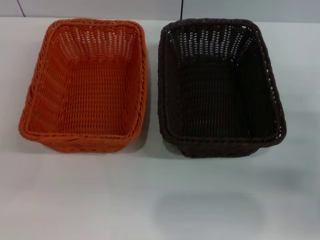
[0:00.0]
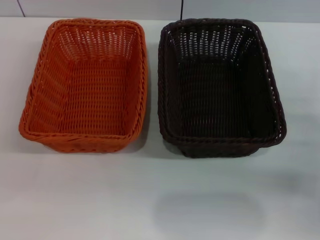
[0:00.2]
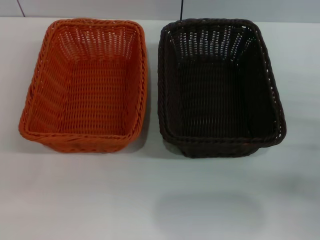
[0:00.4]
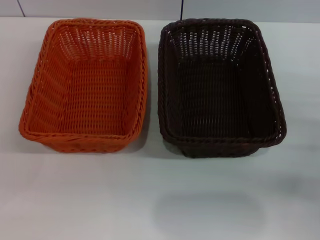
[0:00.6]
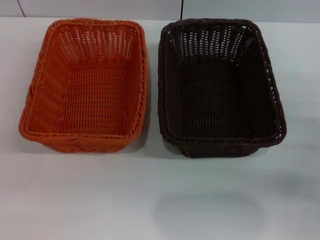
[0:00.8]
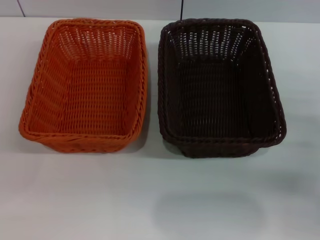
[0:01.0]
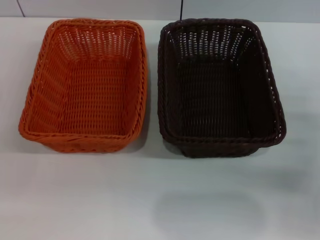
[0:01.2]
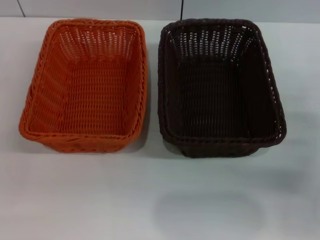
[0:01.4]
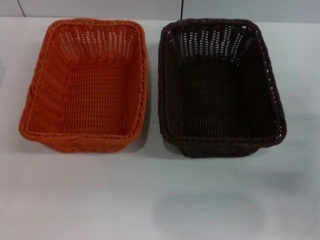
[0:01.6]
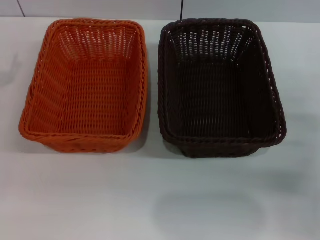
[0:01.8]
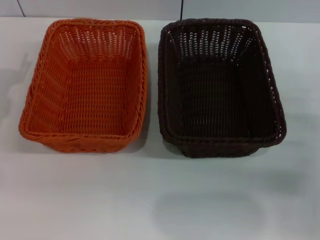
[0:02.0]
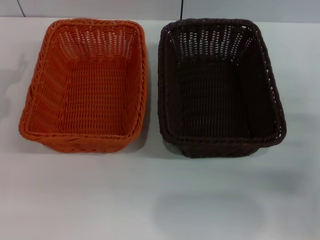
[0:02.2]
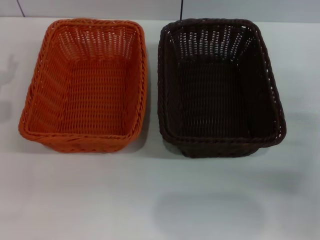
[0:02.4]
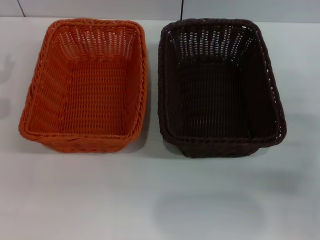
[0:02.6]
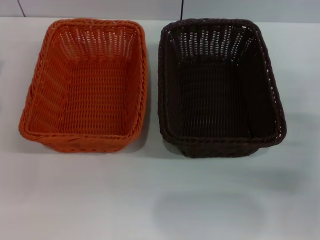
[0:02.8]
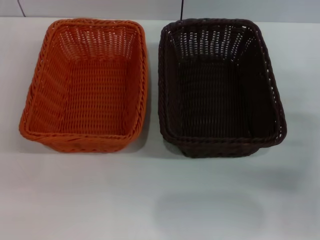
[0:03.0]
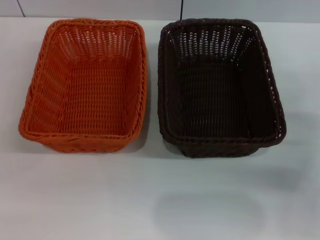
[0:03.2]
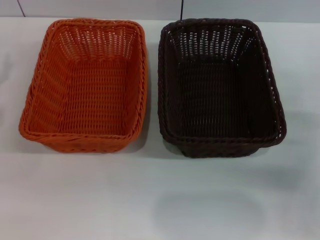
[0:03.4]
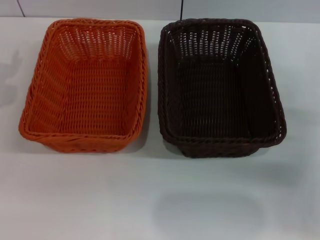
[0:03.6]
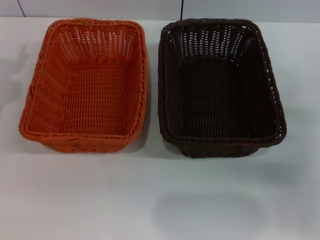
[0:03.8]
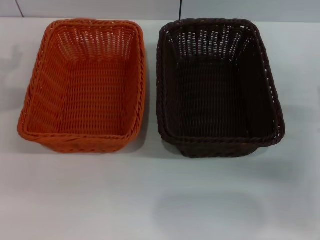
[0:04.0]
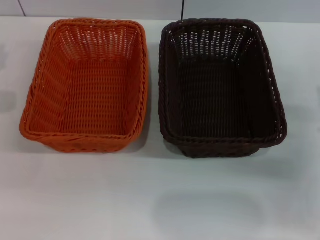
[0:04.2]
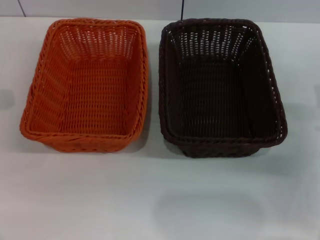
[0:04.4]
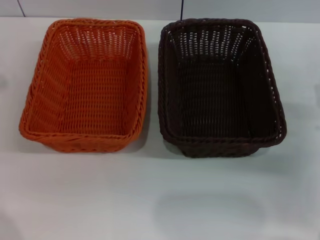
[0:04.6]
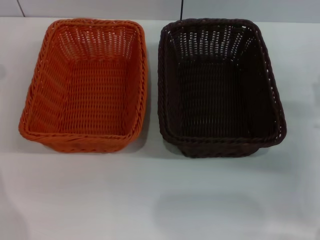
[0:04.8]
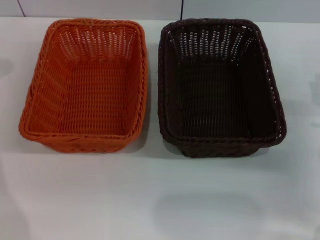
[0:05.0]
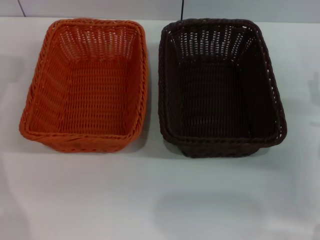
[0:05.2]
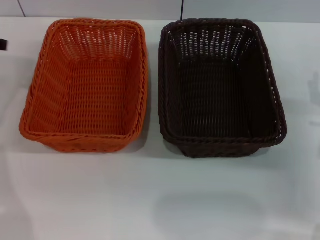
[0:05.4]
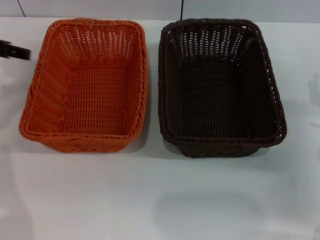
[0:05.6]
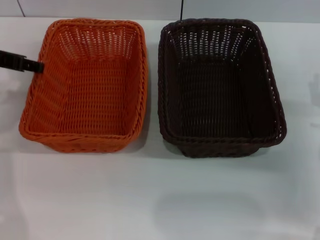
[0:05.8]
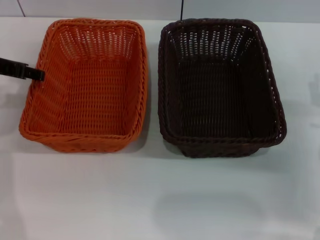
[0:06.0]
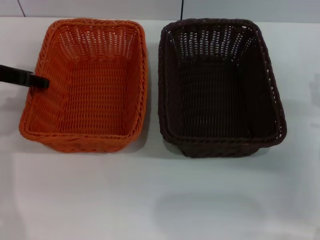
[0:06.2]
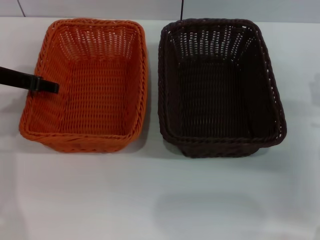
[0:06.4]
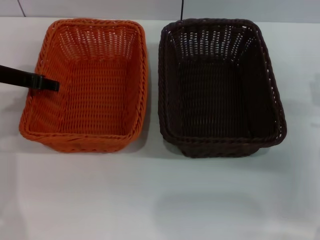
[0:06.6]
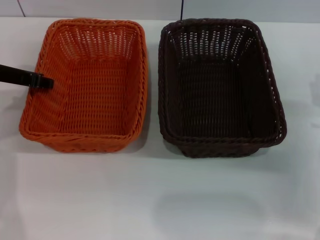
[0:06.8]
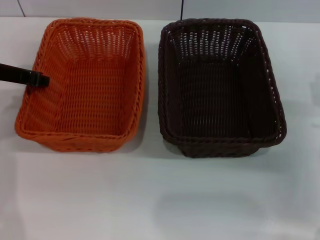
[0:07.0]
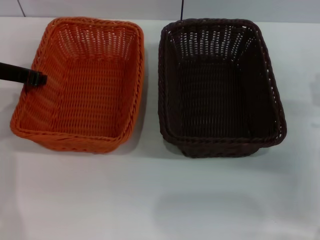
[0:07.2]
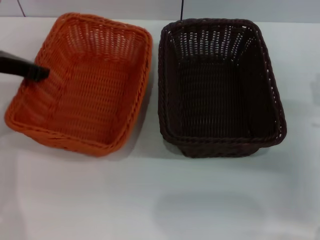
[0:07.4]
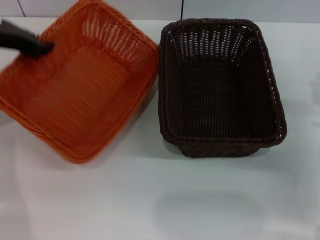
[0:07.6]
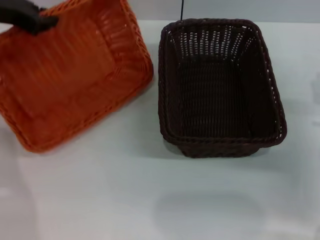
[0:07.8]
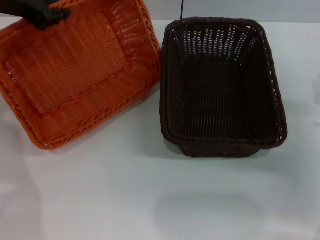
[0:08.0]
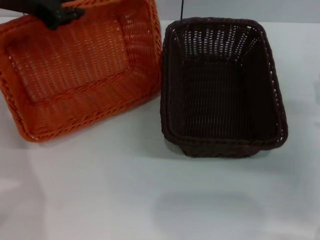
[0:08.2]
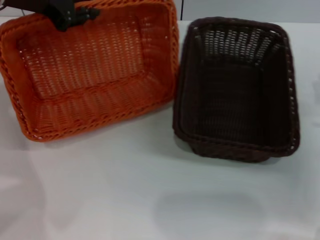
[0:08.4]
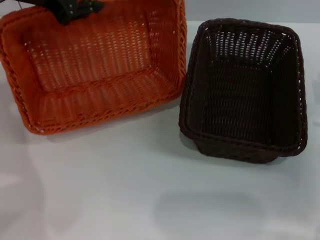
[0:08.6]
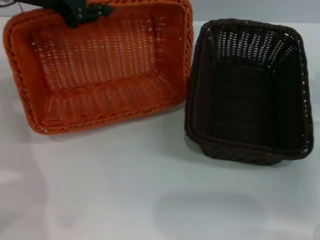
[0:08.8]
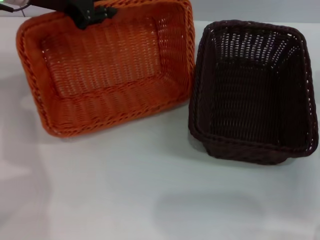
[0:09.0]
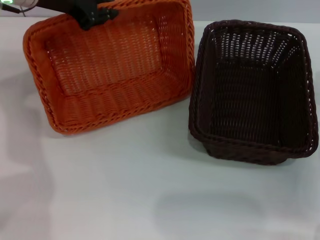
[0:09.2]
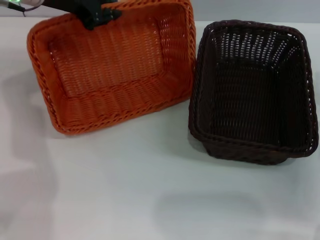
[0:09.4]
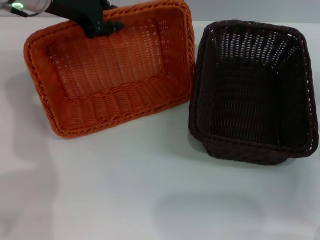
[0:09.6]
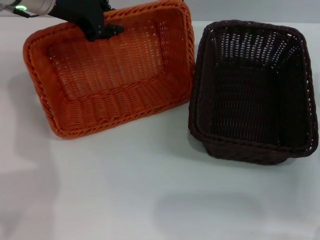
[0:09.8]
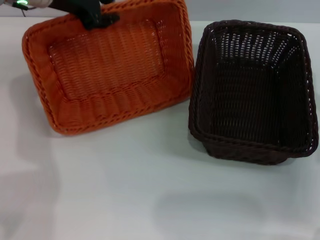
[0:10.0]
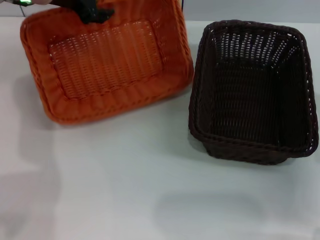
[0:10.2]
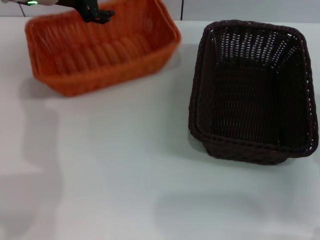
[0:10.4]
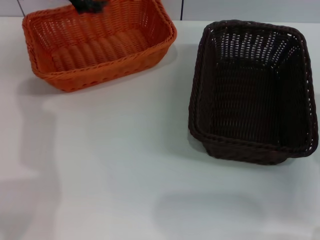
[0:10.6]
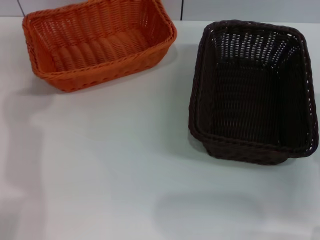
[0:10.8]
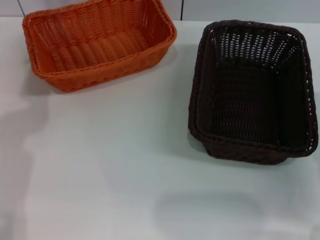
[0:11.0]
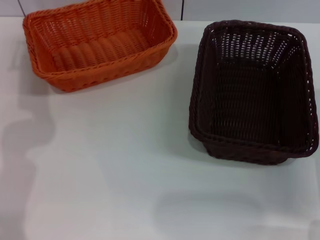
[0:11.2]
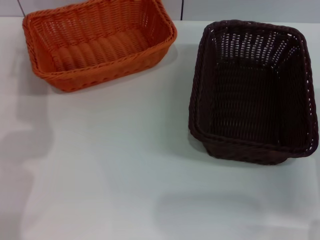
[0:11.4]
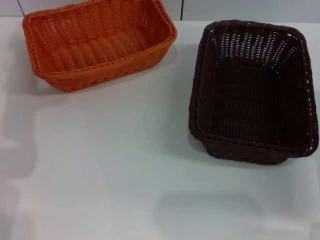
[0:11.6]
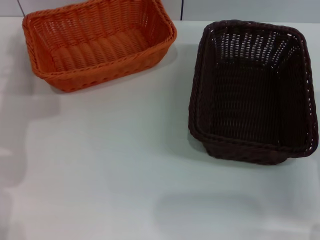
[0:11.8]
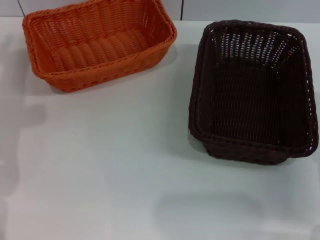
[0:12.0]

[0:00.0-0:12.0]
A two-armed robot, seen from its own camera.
Step, 0:00.0 to 0:07.8: Pick up the light basket with the left gripper.
Step, 0:08.0 to 0:10.4: Place the light basket in the center of view with the left gripper.
0:04.4 to 0:06.0: The left gripper heads to the right and upward, covering about 10 cm.
0:06.0 to 0:07.6: The left gripper closes its fingers.
0:07.6 to 0:09.0: The left gripper moves to the right, some 5 cm.
0:09.0 to 0:10.4: The left gripper ends up about 5 cm from where it was, and opens up.
0:10.4 to 0:12.0: The left gripper shifts some 15 cm backward and to the left.

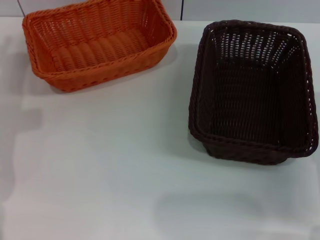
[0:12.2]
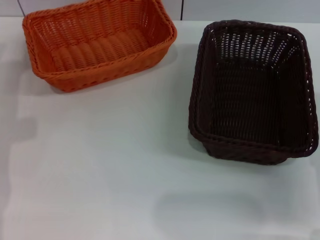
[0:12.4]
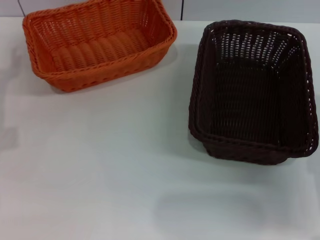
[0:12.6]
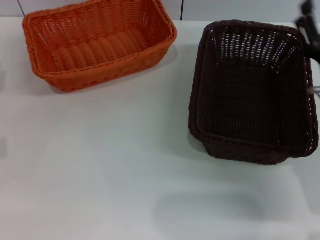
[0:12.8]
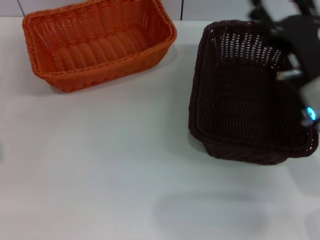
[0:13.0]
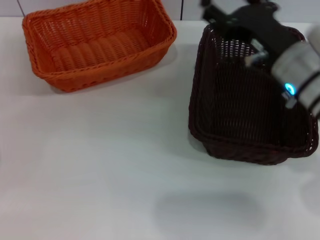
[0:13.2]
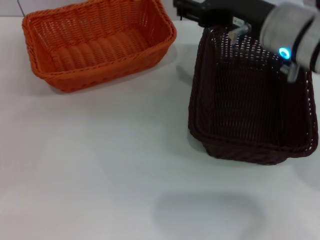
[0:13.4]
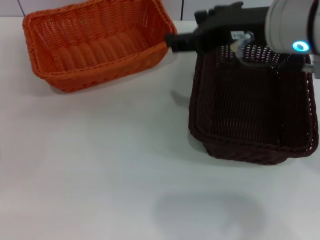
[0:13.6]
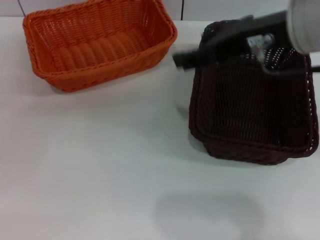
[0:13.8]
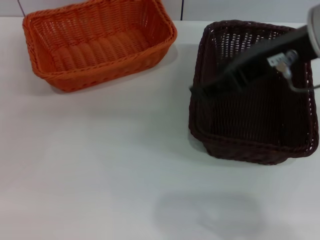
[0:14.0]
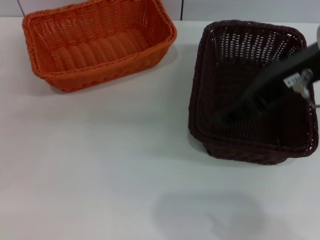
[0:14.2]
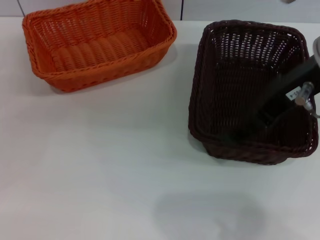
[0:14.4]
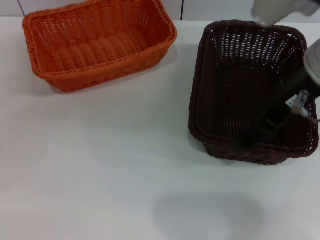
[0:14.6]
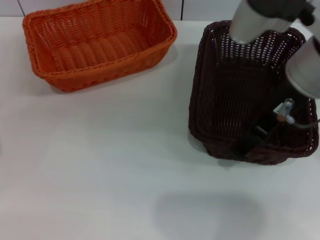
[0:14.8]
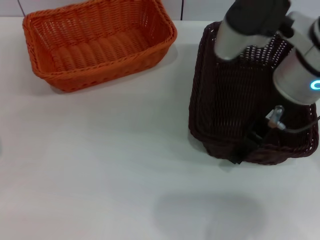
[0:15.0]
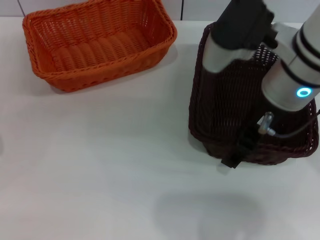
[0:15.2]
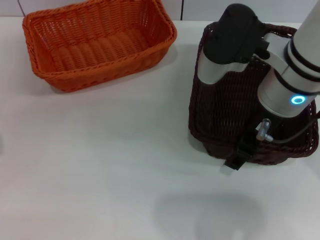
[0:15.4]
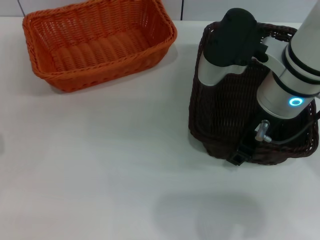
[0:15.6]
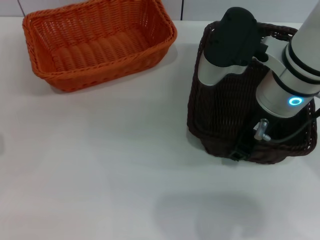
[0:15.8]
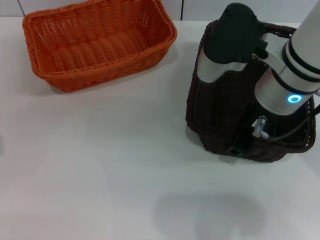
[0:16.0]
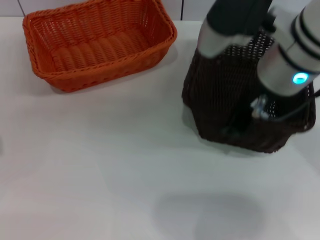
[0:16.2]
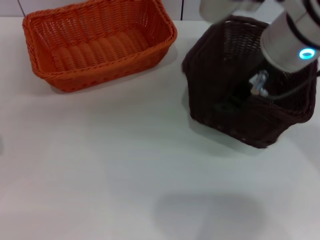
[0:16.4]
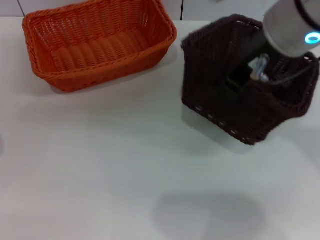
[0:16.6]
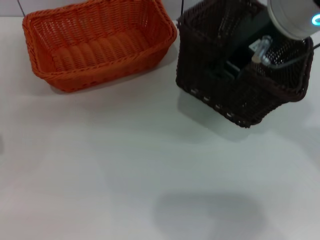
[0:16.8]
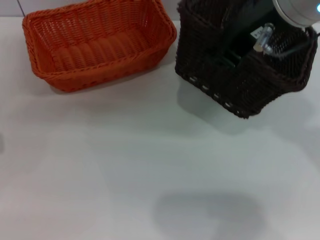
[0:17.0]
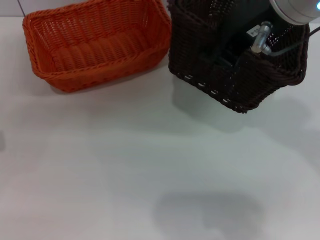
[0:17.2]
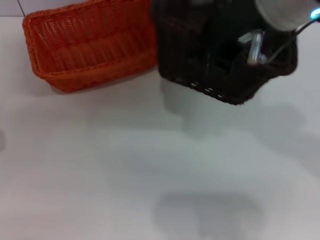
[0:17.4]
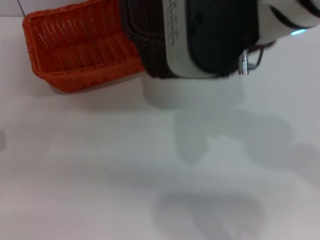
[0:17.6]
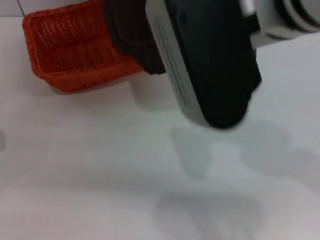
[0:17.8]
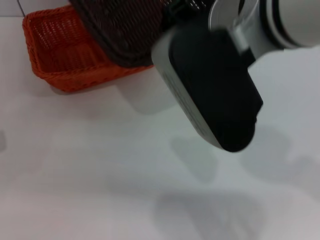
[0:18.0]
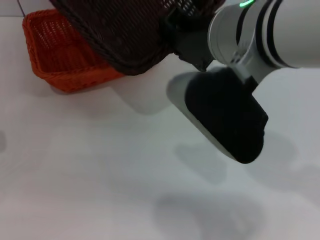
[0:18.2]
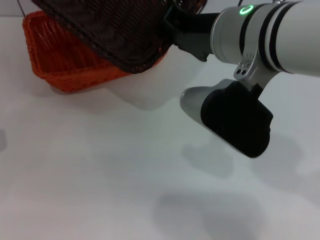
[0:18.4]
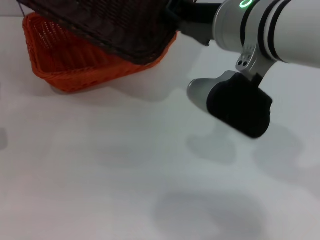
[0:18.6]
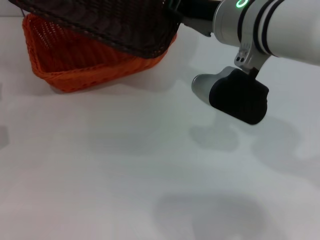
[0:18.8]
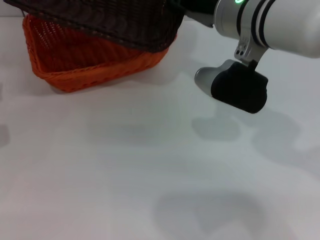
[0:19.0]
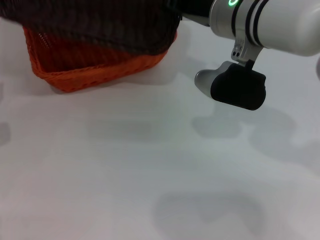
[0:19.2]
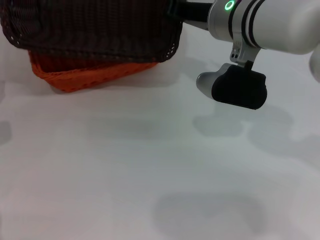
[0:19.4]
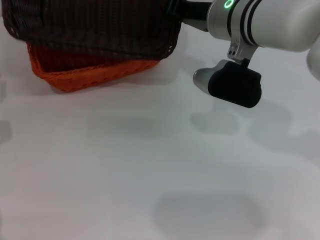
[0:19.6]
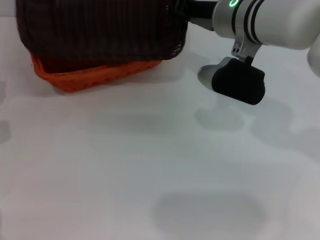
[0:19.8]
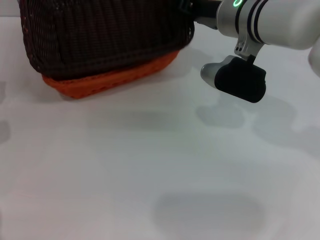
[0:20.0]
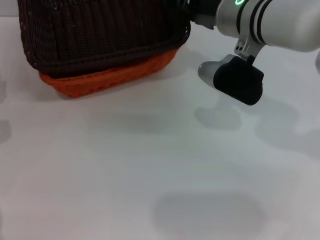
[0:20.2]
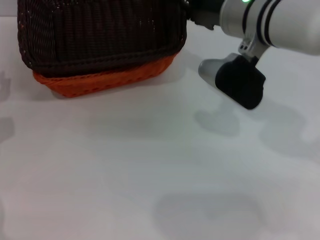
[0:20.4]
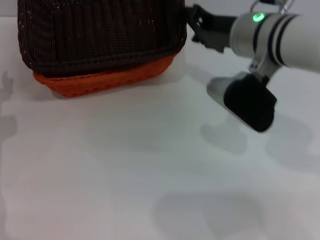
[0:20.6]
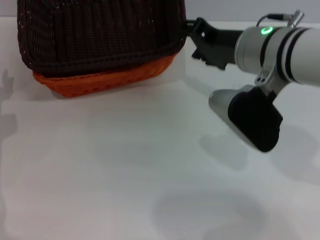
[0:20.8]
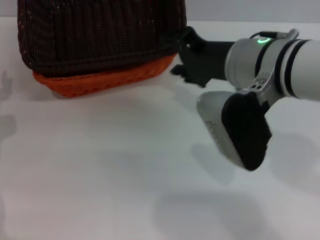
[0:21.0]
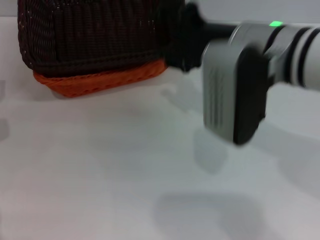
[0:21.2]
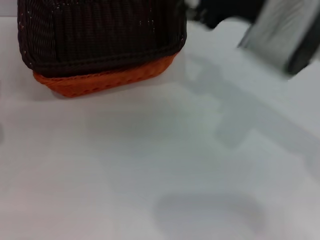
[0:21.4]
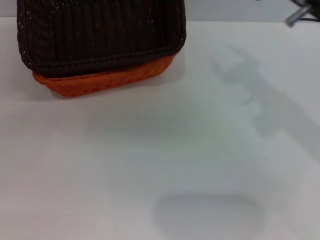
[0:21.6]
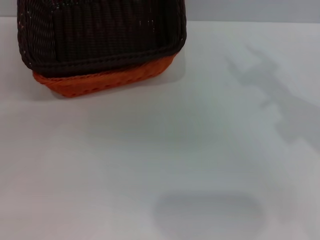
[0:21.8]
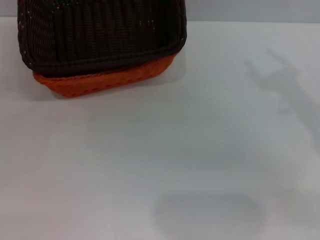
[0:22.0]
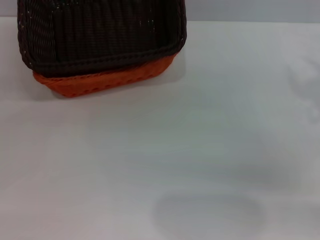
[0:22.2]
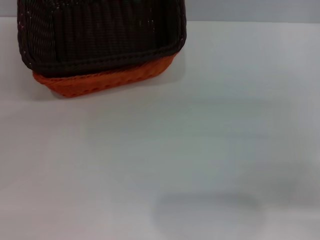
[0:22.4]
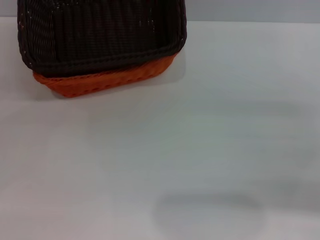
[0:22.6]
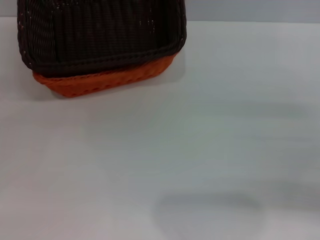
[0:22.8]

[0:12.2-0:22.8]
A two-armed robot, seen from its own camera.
Step, 0:12.2 to 0:16.8: Pick up the dark basket with the right gripper.
Step, 0:17.0 to 0:20.2: Place the dark basket on the light basket with the right gripper.
0:12.2 to 0:13.8: The left gripper goes roughly 15 cm downward and backward. The right gripper heads upward and to the left, covering some 25 cm.
0:13.8 to 0:15.2: The right gripper heads downward, covering roughly 5 cm.
0:15.2 to 0:16.8: The right gripper travels upward by some 10 cm, and closes its fingers.
0:16.8 to 0:18.2: The right gripper goes about 5 cm downward.
0:18.2 to 0:19.8: The right gripper heads forward and downward, covering approximately 15 cm.
0:19.8 to 0:21.2: The right gripper travels backward by about 10 cm, and opens up.
0:21.2 to 0:22.8: The right gripper is displaced to the right and downward by about 25 cm.
